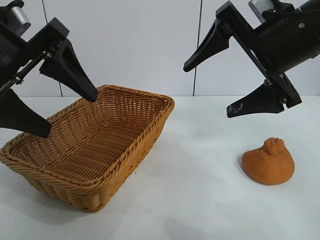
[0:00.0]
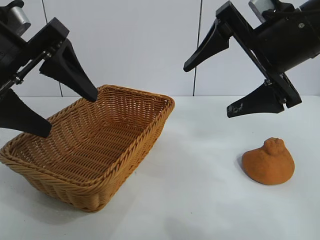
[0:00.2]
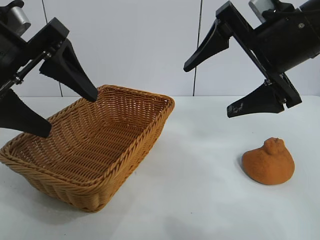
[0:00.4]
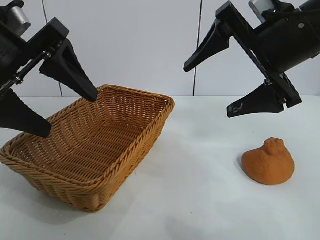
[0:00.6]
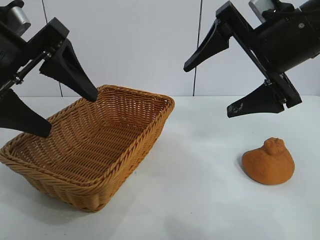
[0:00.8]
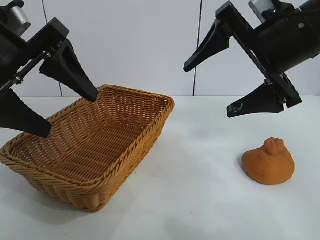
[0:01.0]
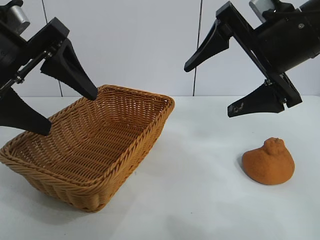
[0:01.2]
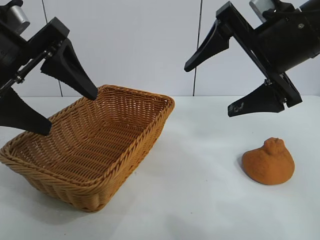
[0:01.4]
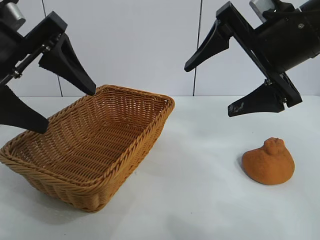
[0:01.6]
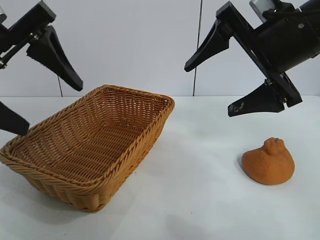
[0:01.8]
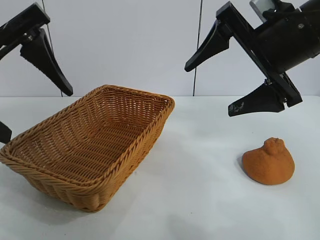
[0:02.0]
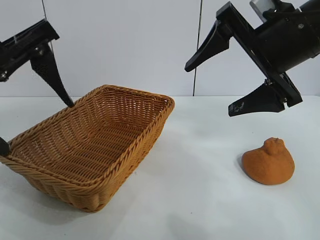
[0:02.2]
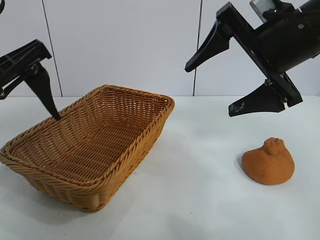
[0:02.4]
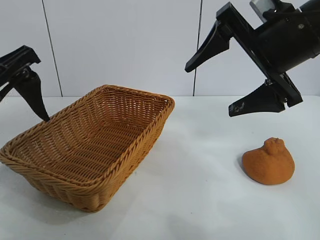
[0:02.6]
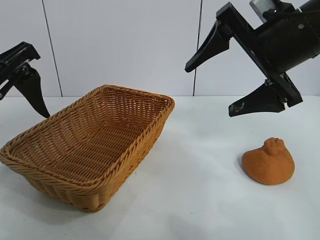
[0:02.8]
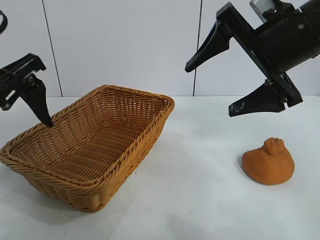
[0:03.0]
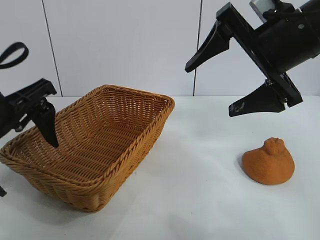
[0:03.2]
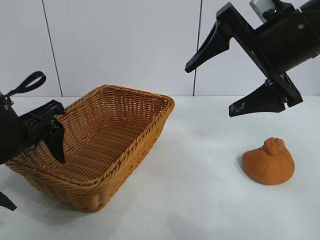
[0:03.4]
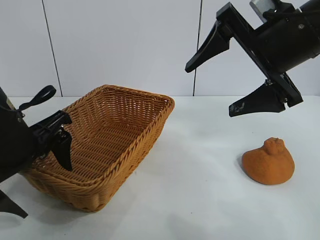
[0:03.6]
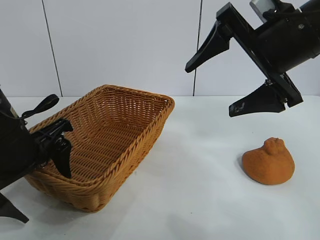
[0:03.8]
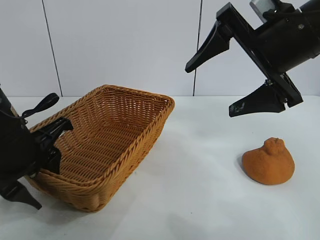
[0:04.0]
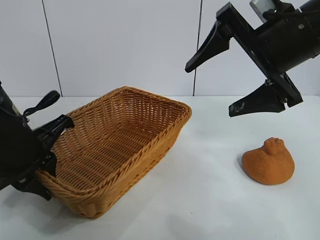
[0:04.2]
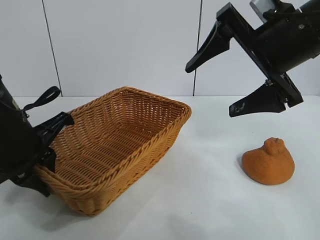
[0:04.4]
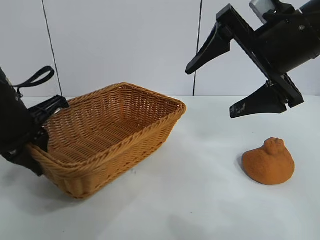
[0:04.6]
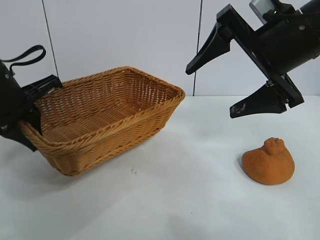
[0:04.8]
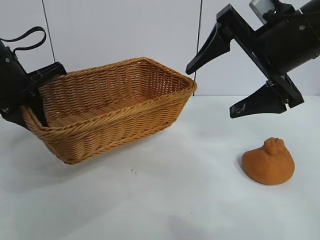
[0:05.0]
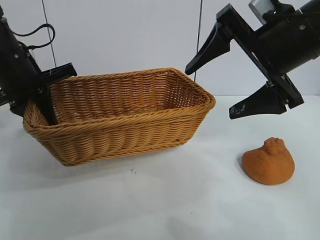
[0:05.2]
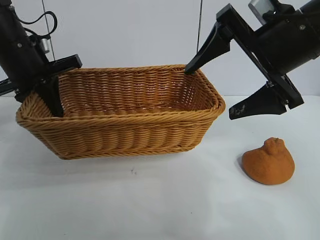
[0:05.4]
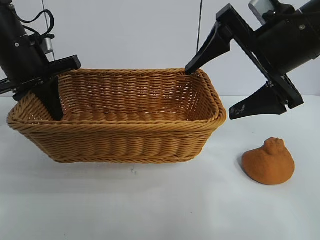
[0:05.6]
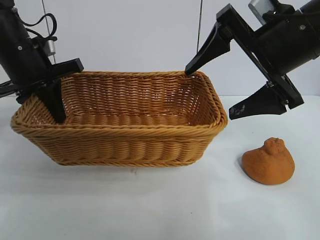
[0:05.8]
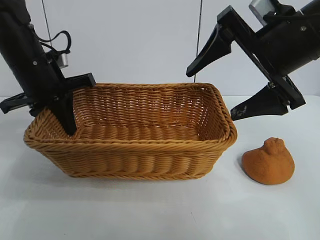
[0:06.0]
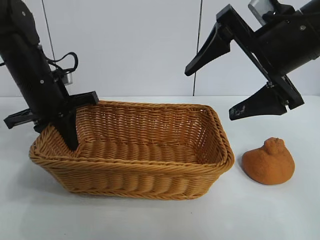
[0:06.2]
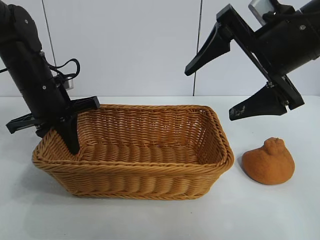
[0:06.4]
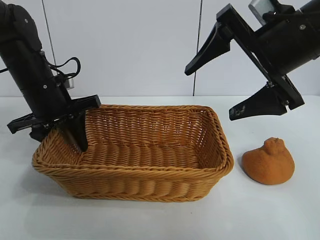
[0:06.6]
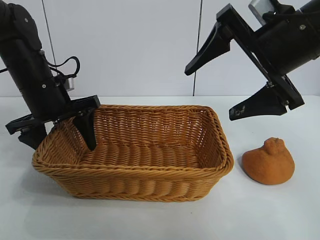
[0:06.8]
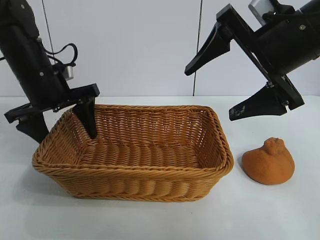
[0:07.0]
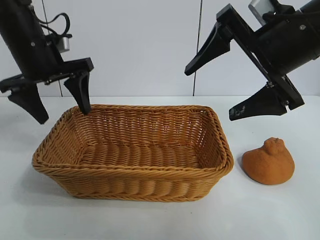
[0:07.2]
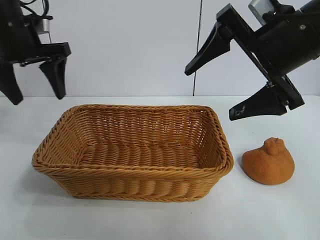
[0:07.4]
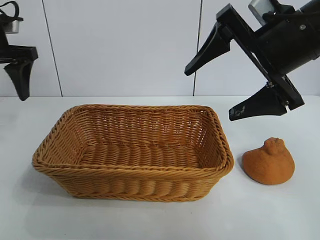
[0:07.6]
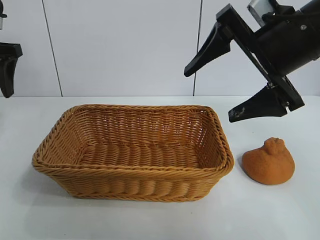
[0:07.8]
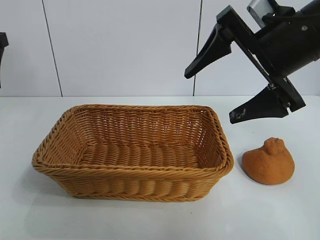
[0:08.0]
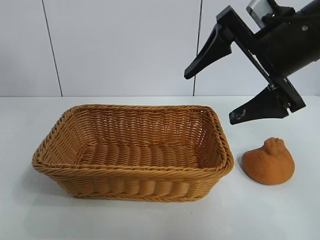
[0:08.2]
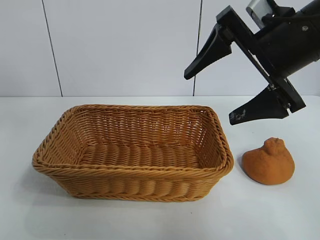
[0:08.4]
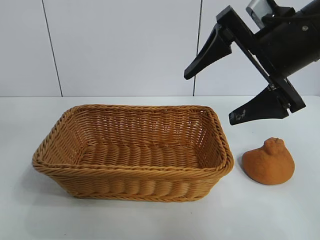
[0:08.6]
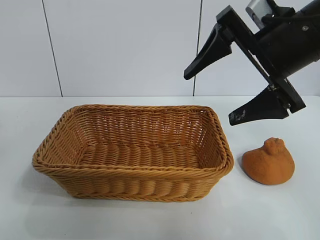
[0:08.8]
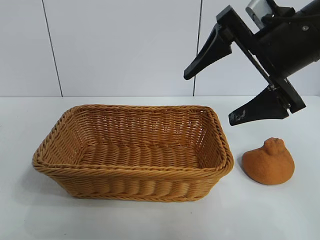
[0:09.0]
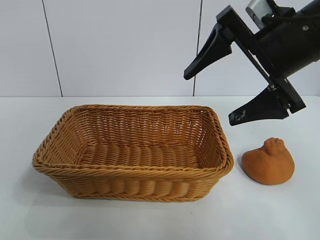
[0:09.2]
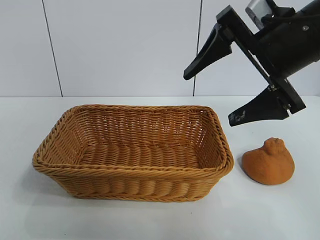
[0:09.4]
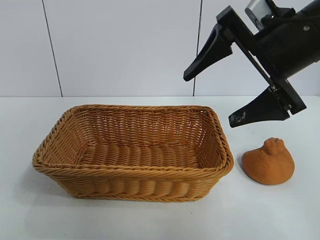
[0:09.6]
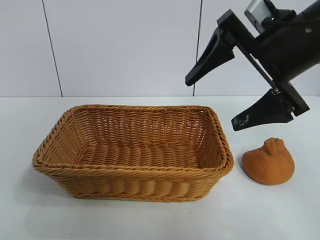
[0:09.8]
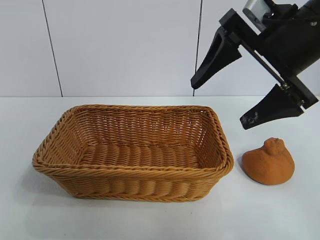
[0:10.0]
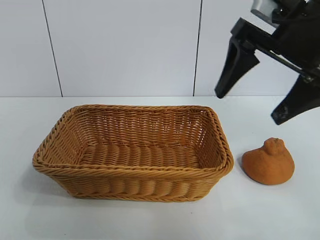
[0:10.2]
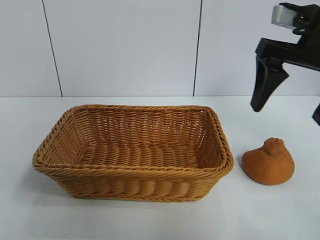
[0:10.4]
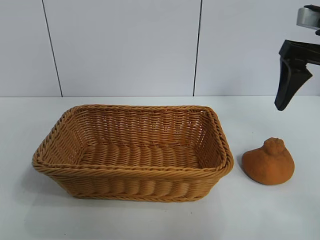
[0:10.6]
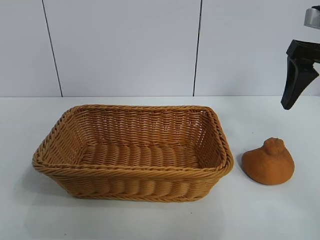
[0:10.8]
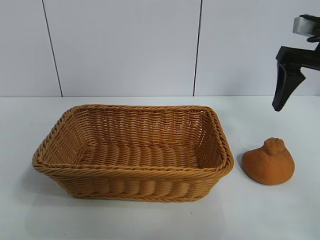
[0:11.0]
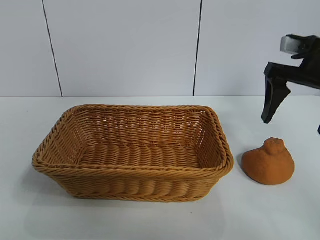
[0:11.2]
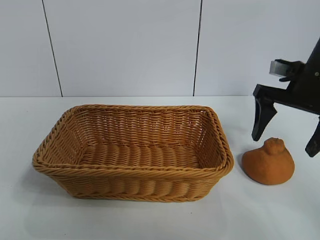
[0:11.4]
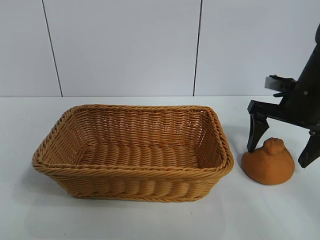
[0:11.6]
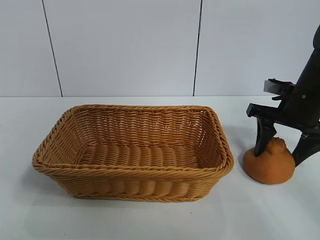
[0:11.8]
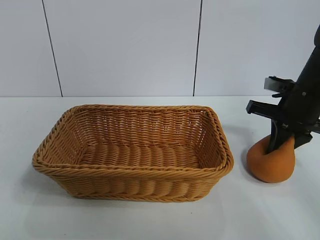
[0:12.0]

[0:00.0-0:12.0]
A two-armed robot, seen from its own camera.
Task of the whole recording: pick up the orange and put it into the basket.
Step, 0:01.6 to 0:04.0: Grasp the basket with left gripper.
Step, 0:04.2 to 0:06.8: Place the basket in the center of view with left gripper.

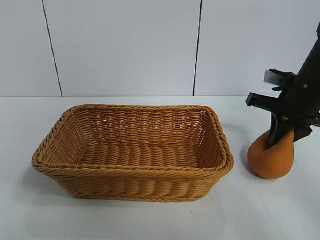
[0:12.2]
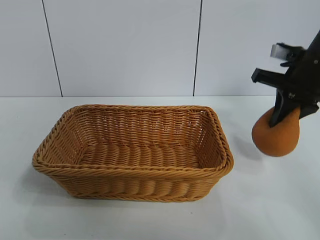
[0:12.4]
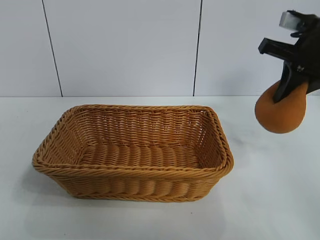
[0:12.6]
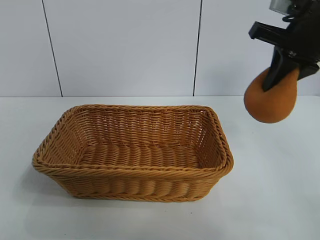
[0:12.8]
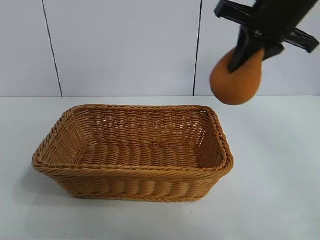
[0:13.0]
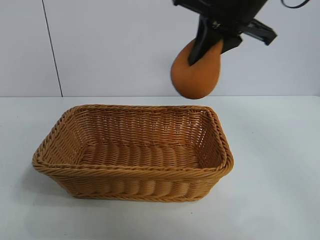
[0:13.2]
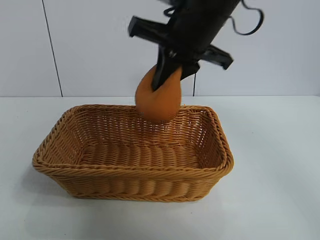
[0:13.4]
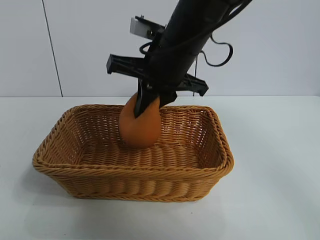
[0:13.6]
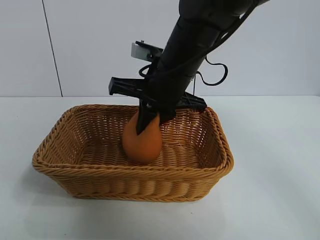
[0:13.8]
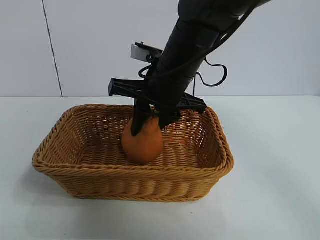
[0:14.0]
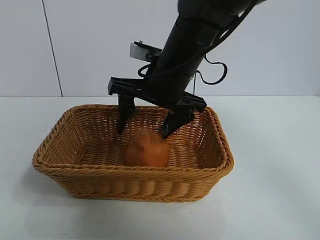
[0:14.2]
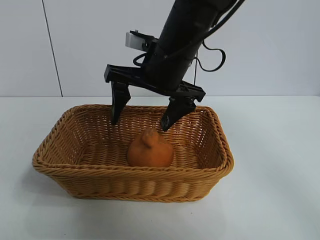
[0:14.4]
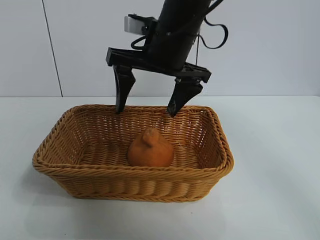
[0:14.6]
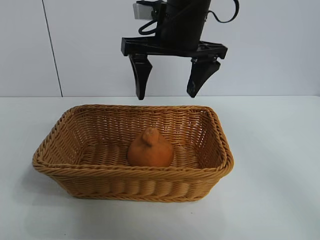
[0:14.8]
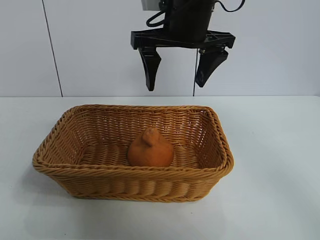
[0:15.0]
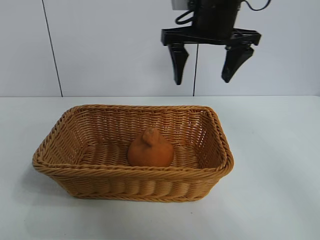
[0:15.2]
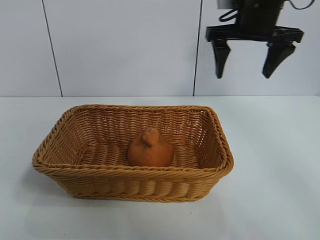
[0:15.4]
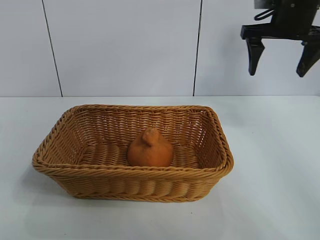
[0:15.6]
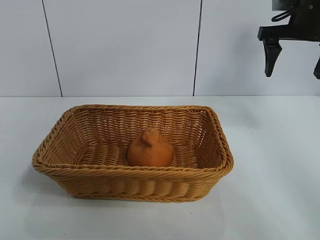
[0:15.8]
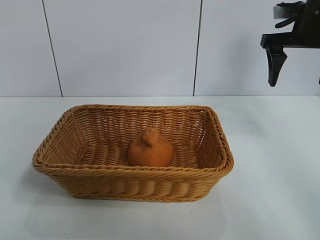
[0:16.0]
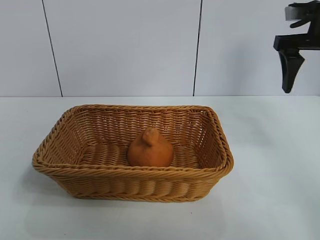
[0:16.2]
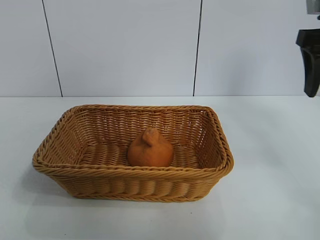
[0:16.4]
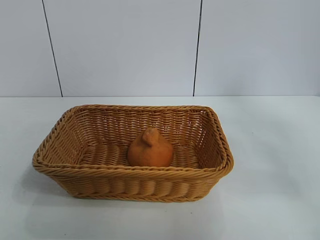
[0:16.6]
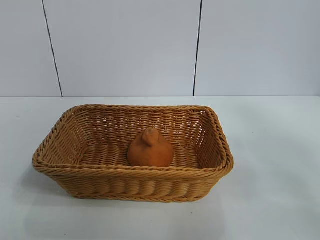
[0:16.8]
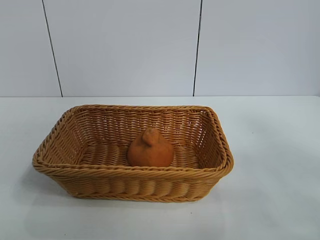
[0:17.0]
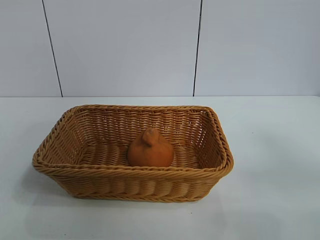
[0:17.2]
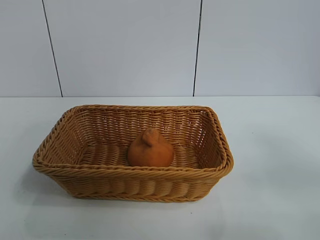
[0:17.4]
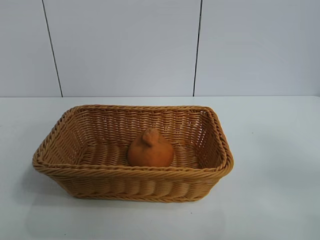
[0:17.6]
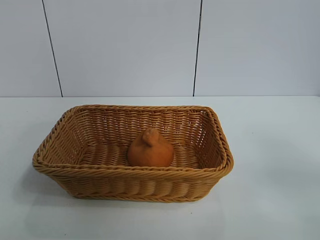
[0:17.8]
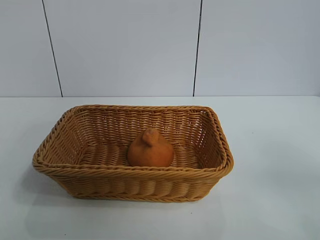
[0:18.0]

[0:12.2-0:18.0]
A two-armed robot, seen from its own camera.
Task of the whole recording: pick up the orange and put it into the basket.
Step, 0:12.4 to 0:14.2: Place the orange in the basket with right gripper.
